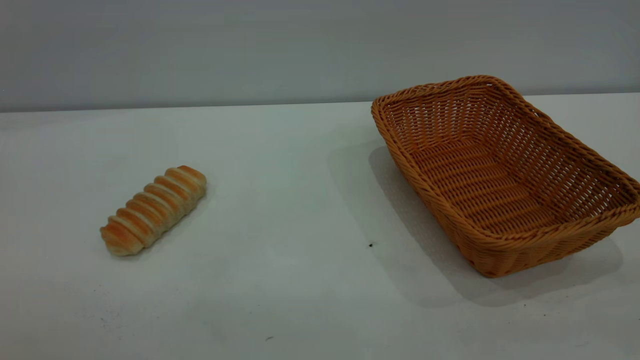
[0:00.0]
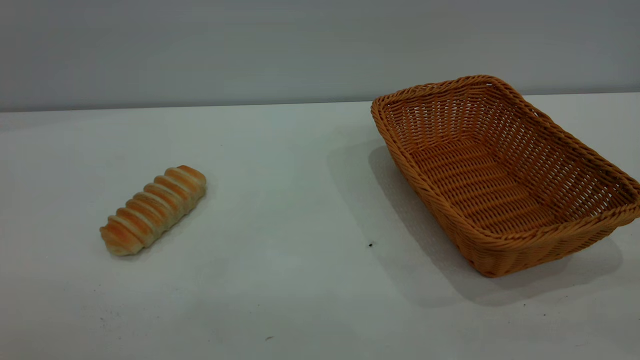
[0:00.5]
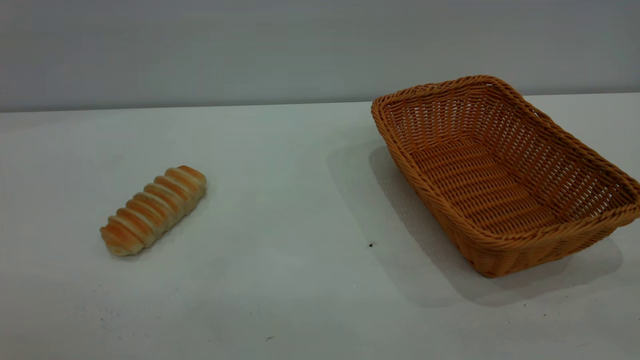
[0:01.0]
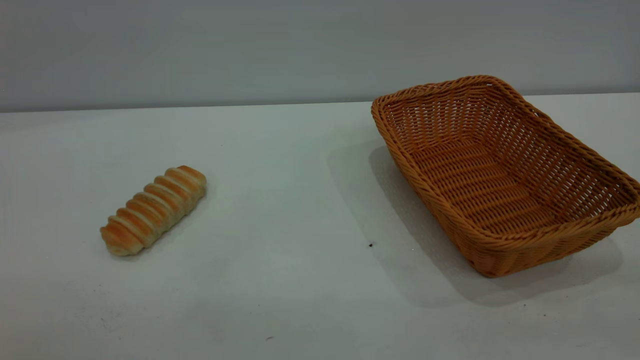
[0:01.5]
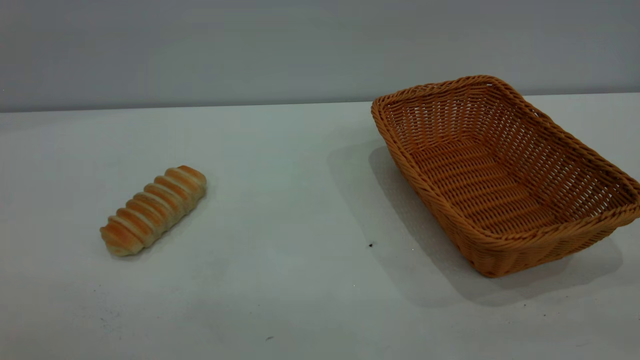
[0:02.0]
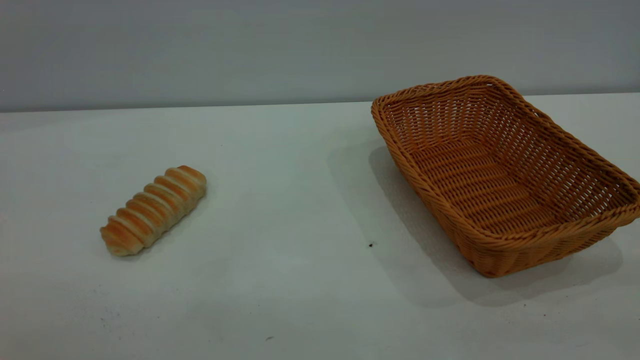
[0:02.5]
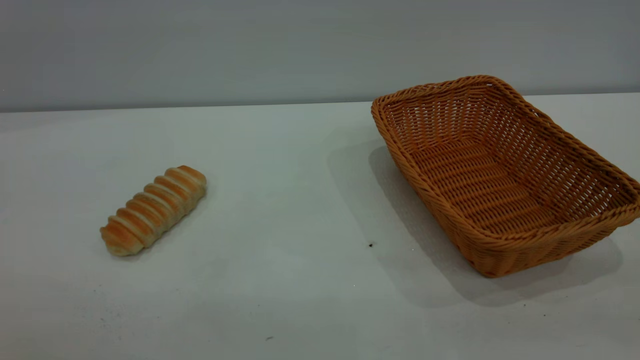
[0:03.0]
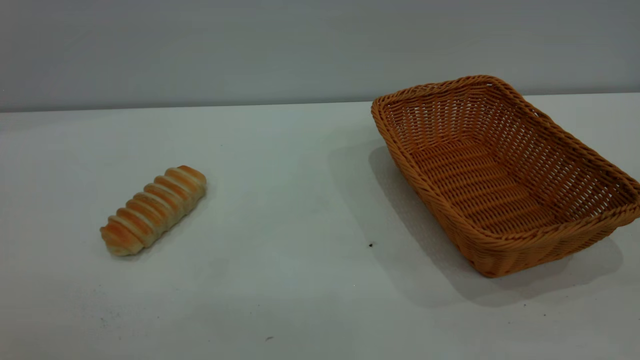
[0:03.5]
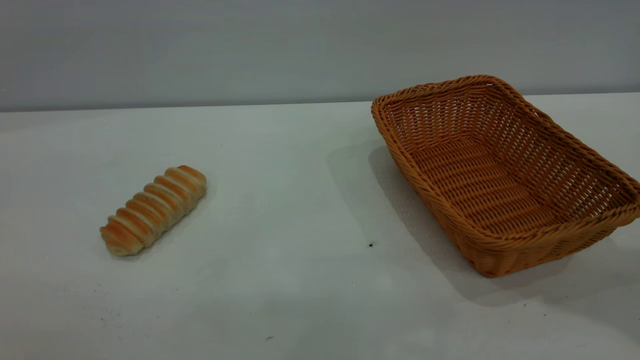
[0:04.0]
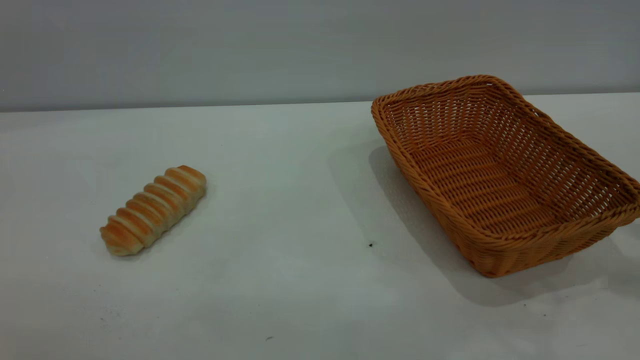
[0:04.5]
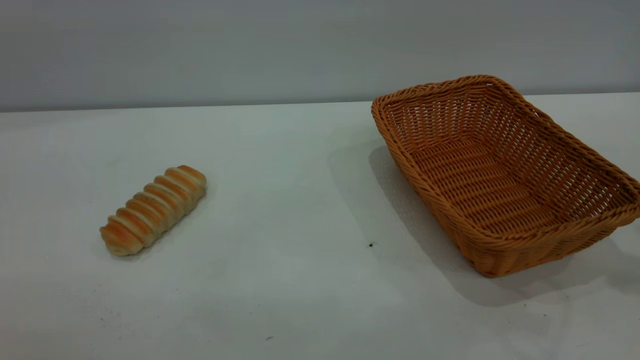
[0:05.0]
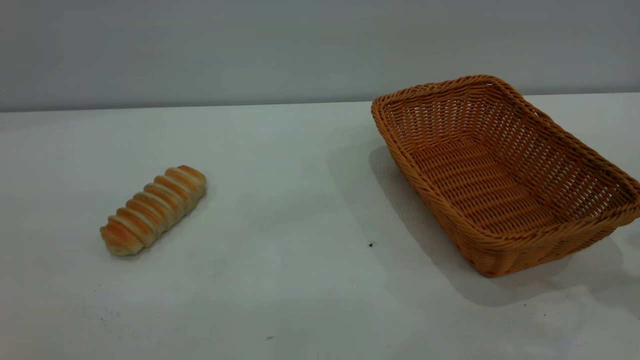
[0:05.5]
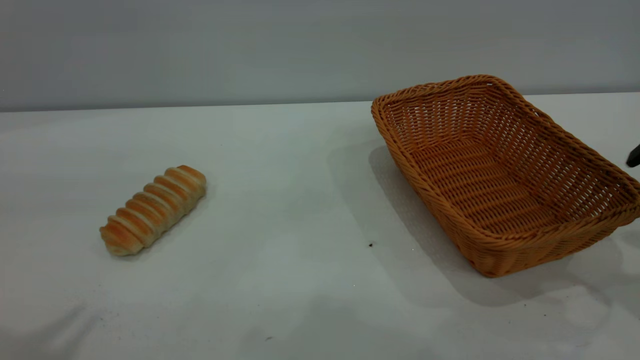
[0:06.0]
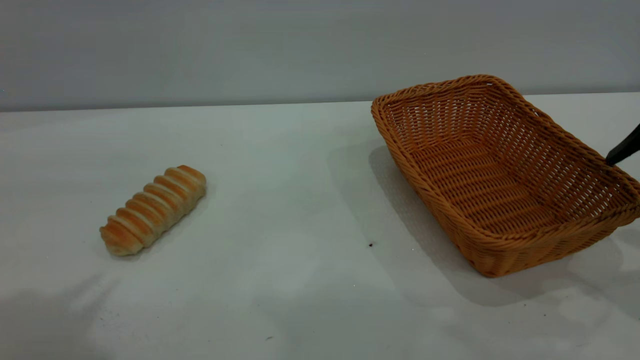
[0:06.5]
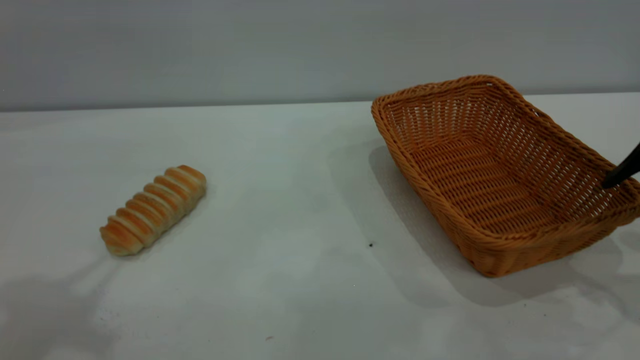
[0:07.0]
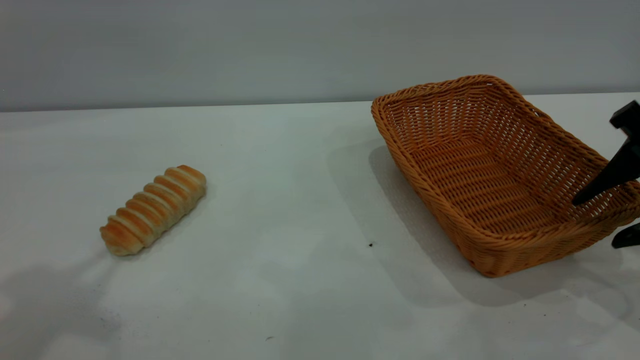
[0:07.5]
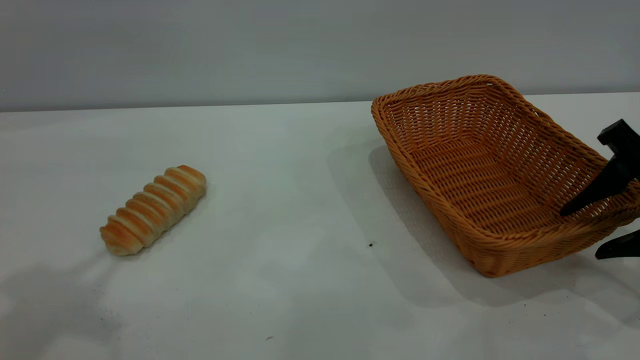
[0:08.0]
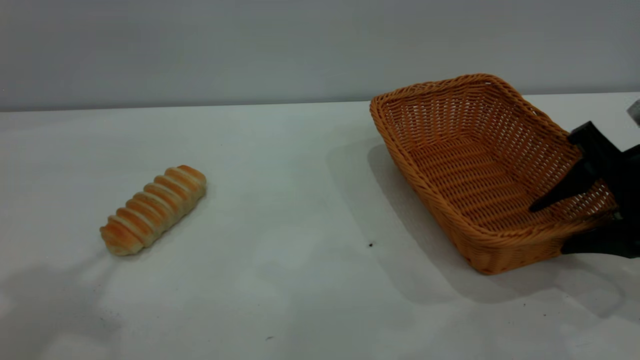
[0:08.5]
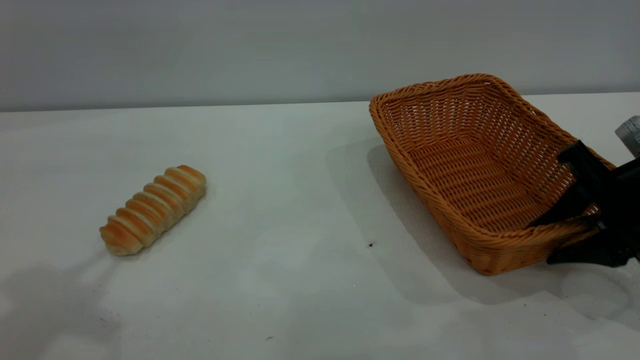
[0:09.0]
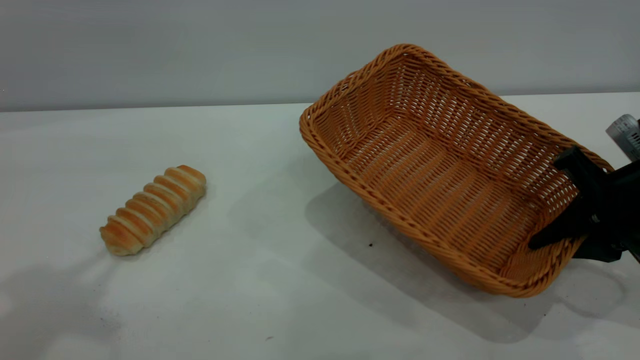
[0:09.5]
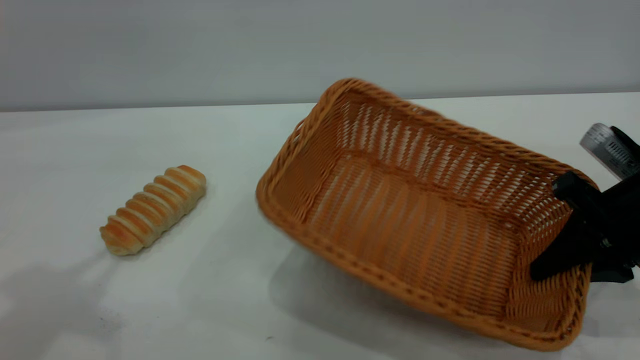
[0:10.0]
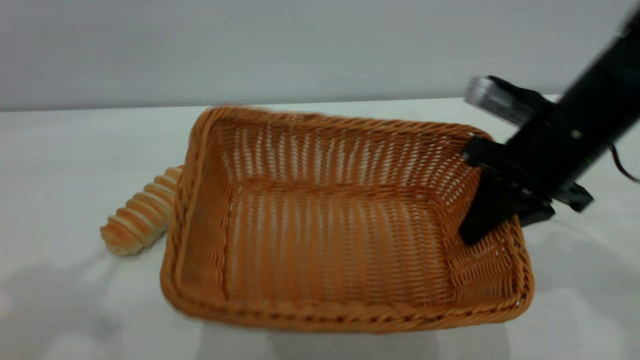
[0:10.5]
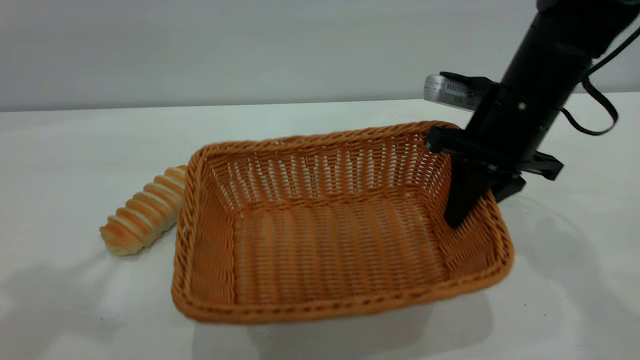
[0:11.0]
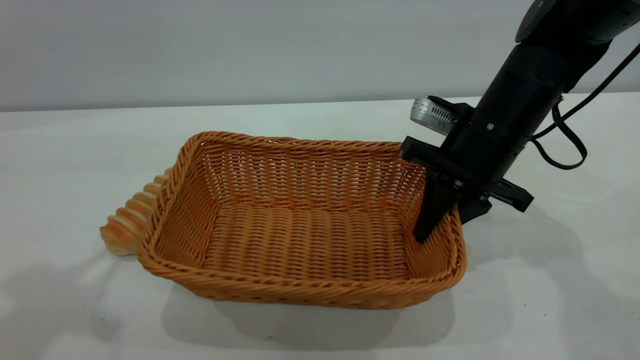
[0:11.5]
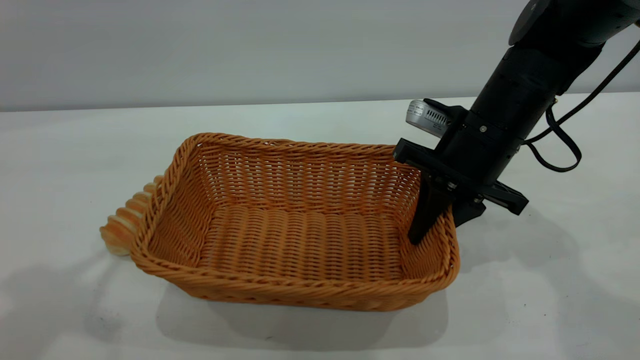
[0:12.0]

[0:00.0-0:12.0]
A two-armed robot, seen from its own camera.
Task of the whole recording: One hand grasps the yellow basket and places it in the middle of the table, while the other hand picks up the long bread and puts it into the yellow basket.
0:00.0 to 0:02.0: Neither gripper changes place.
0:06.0 to 0:08.0: The right gripper travels downward by about 10 cm.
0:08.0 to 0:10.0: The right gripper closes its fingers.
0:10.0 to 0:12.0: The right gripper goes approximately 15 cm to the left and forward.

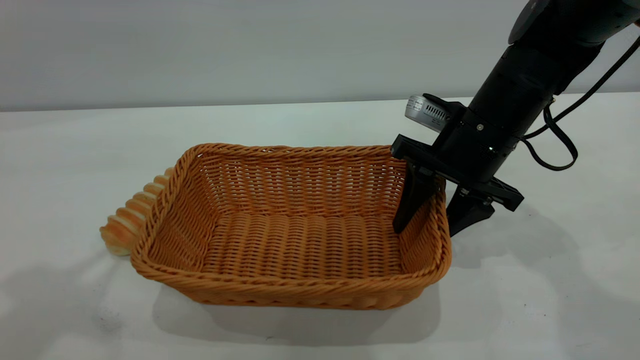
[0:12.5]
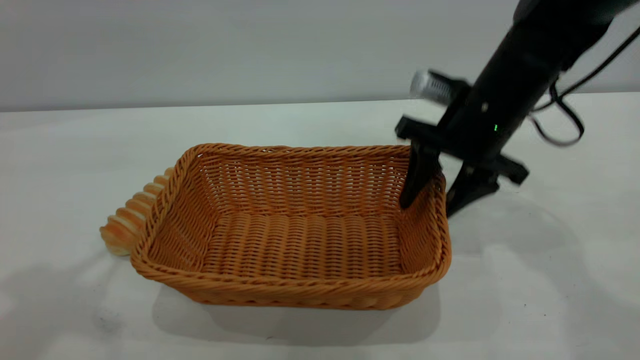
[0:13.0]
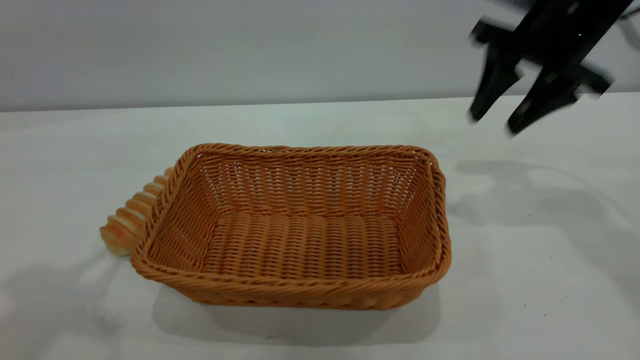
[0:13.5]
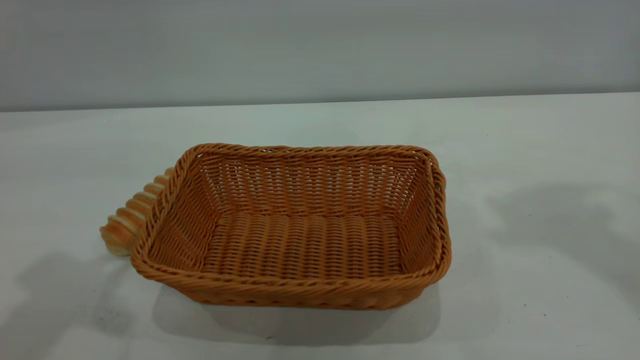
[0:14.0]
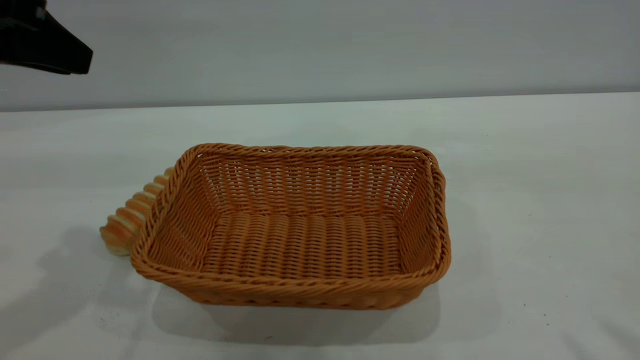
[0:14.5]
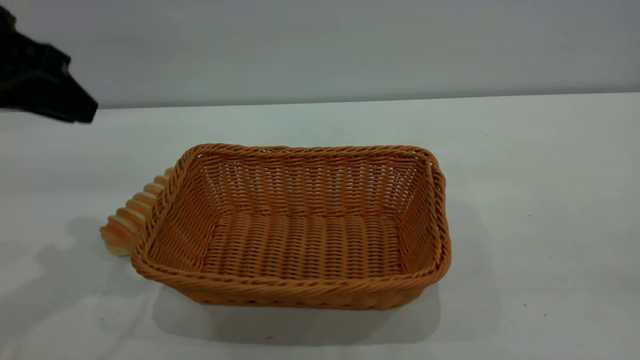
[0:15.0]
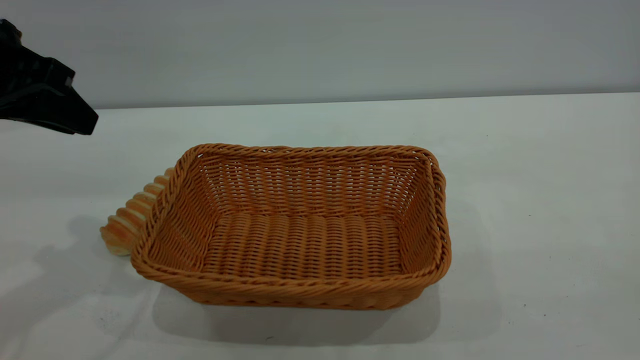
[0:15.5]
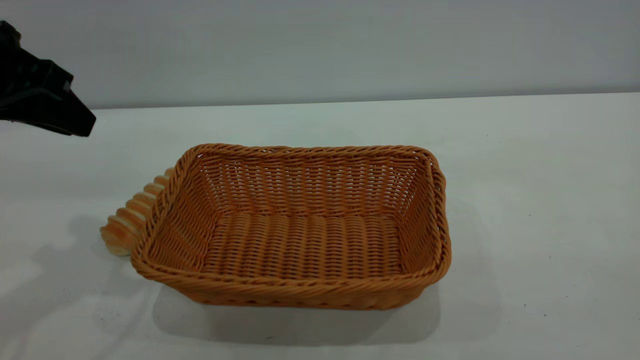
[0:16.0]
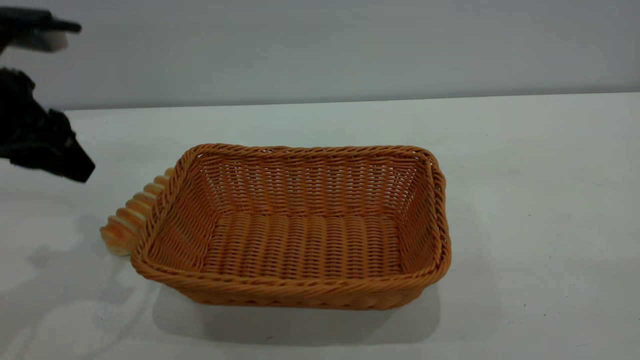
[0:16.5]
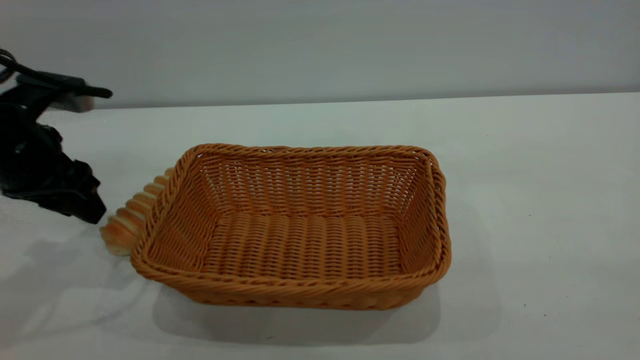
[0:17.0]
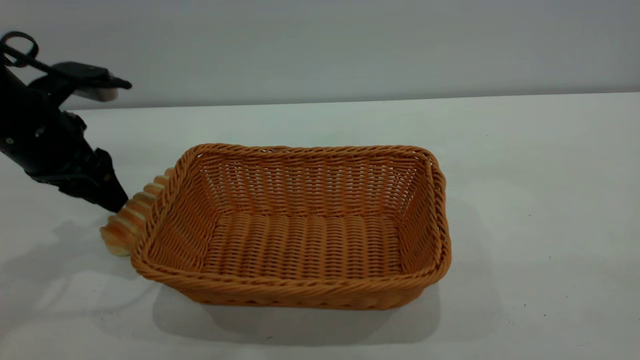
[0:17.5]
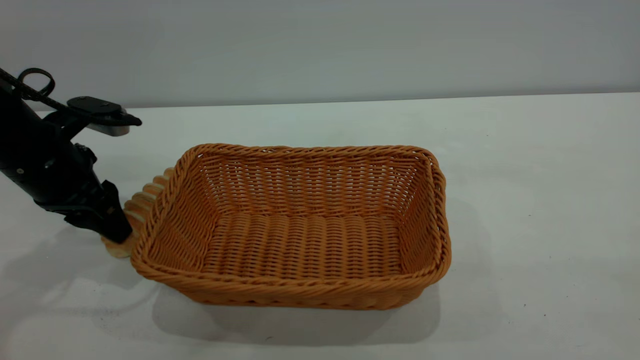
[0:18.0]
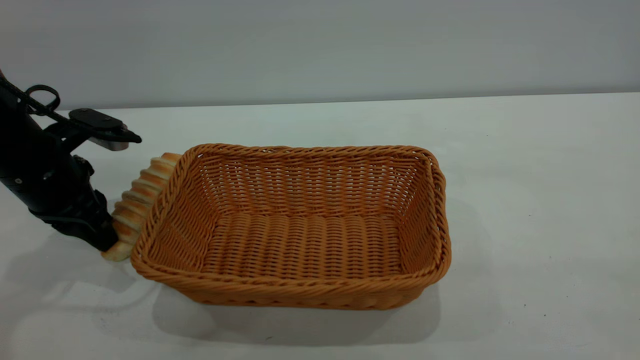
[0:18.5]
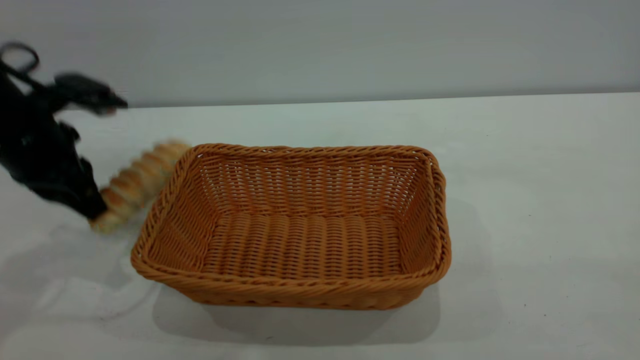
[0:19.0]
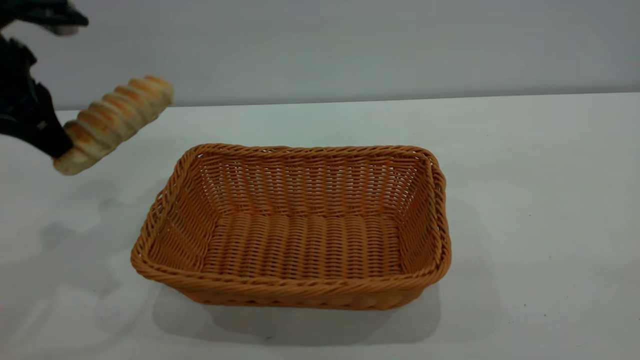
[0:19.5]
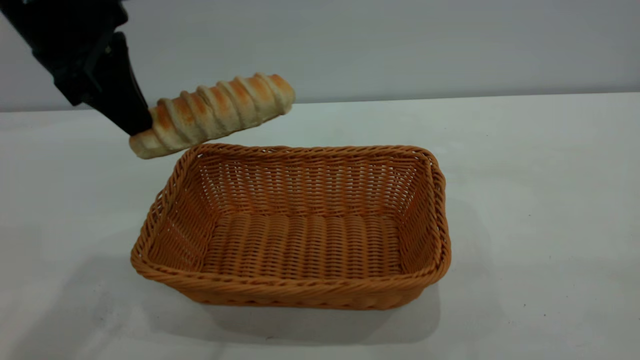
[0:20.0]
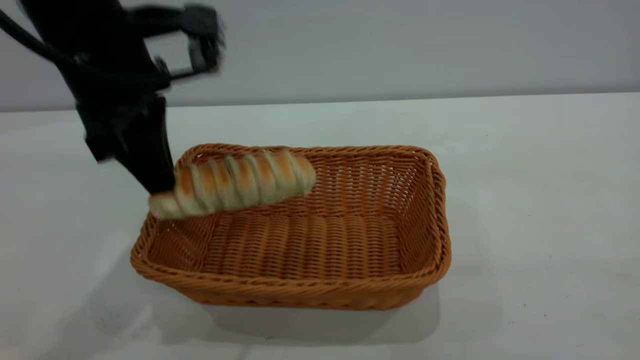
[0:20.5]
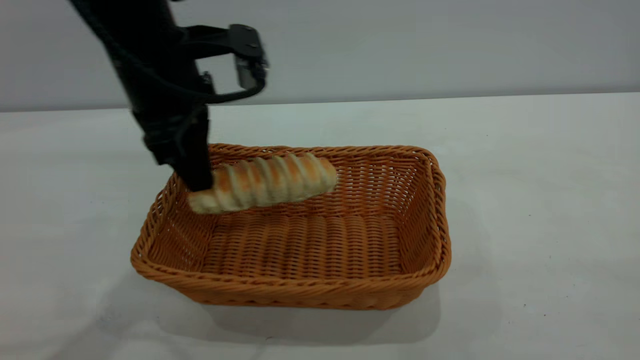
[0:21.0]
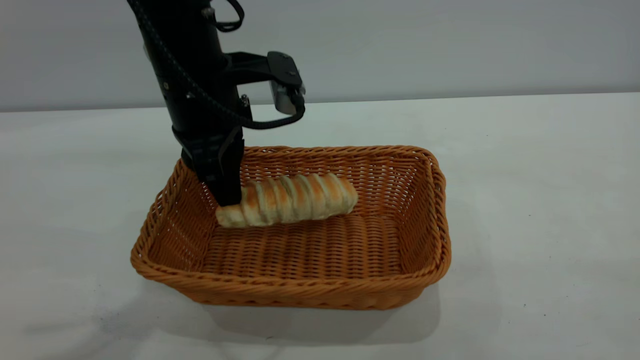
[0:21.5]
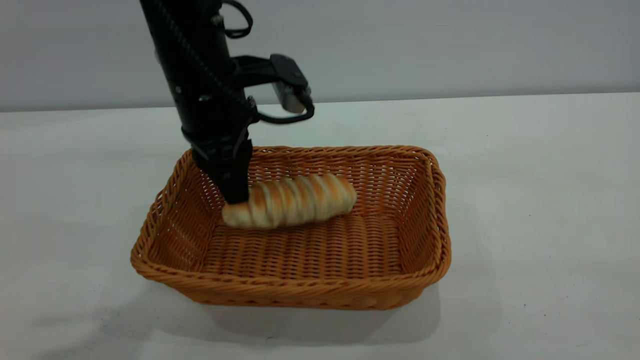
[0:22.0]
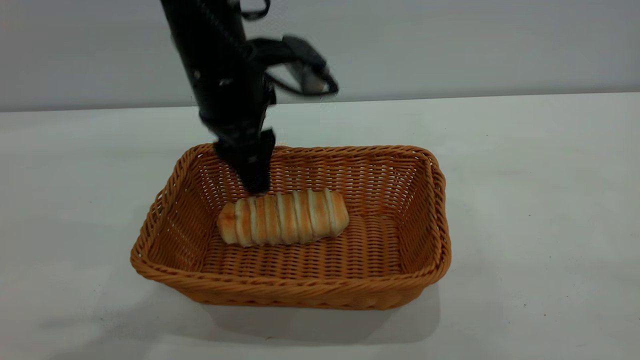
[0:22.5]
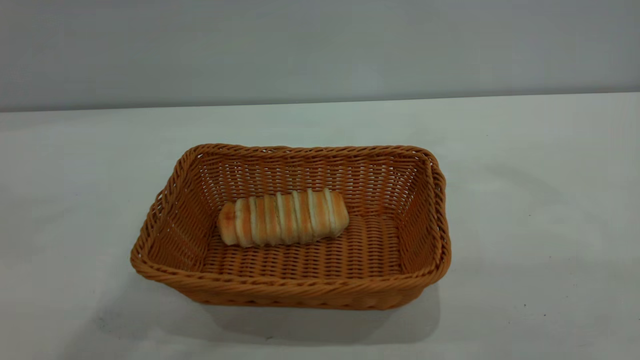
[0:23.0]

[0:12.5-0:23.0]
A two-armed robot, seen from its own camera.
Task of the whole recording: One hand grasps the yellow basket and places it in the middle of the table, while the other hand picks up the long bread and puts it into the yellow basket.
Step, 0:19.5 to 0:22.5: place the bread into the basket.
0:12.5 to 0:14.5: The right gripper is displaced upward, backward and to the right by about 40 cm, while the left gripper goes approximately 10 cm downward and forward.
0:14.5 to 0:16.5: The left gripper shifts about 10 cm downward, and opens.
0:16.5 to 0:19.0: The left gripper closes its fingers.
0:19.0 to 0:21.0: The left gripper moves to the right, about 15 cm.
0:21.0 to 0:23.0: The left gripper travels upward by approximately 20 cm, and opens up.
